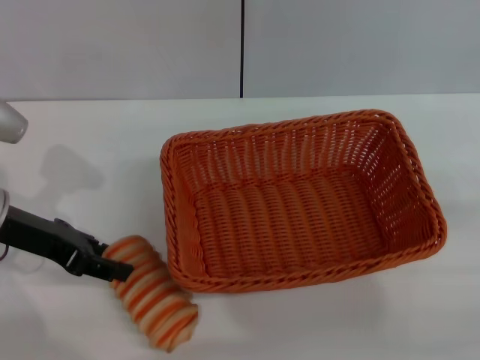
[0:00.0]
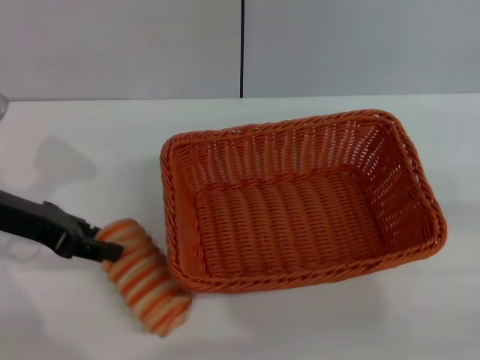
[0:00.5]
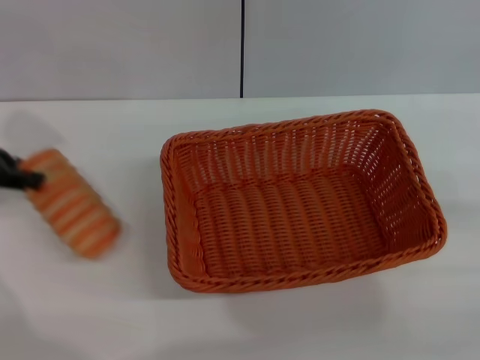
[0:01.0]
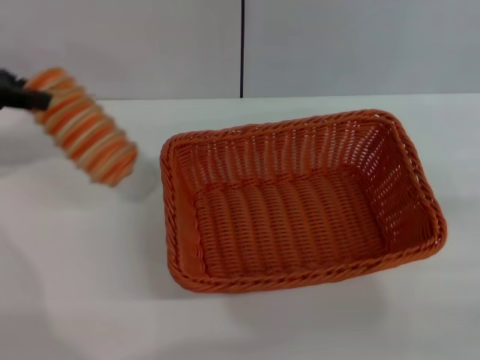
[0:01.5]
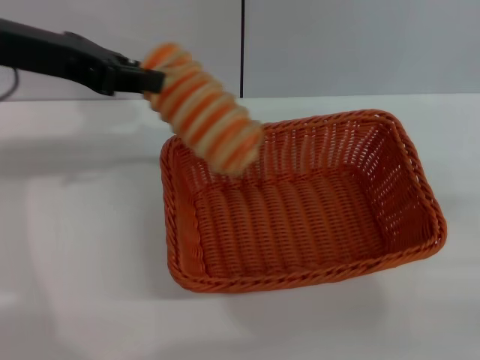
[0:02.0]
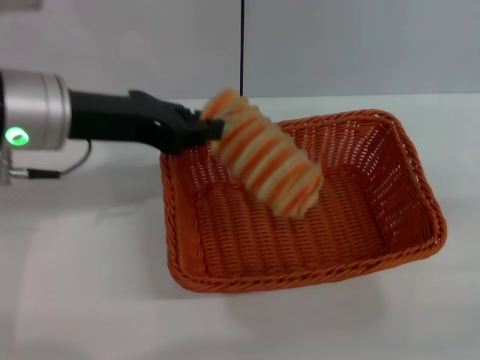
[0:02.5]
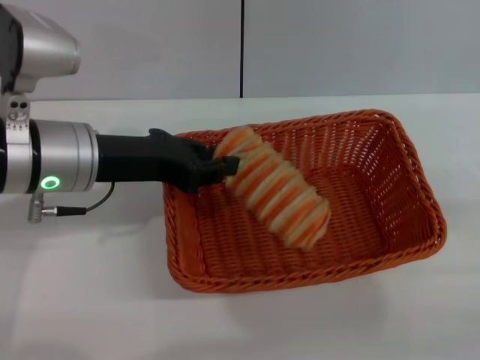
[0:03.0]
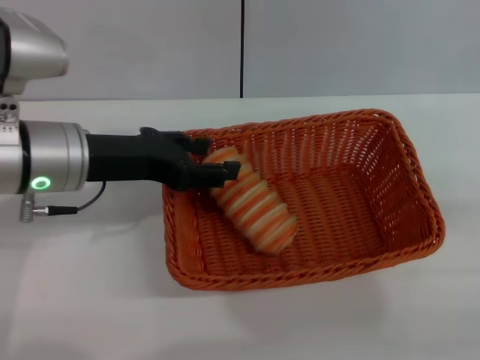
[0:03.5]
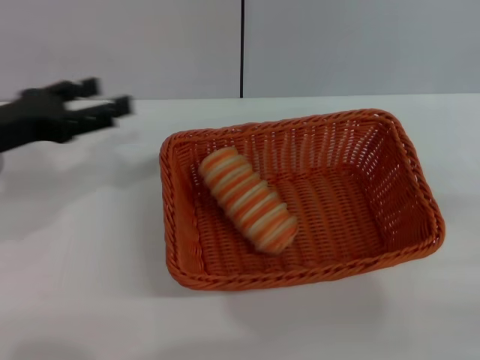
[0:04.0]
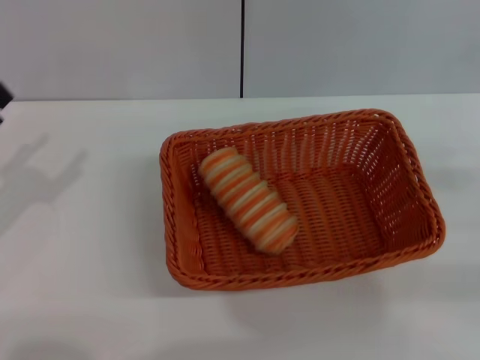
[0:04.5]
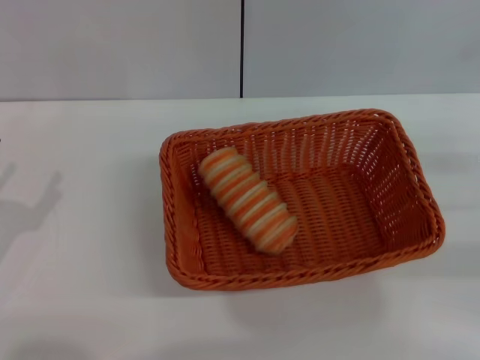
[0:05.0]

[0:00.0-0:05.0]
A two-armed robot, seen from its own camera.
Step, 0:01.5 to 0:03.5: Place the long bread into the light basket with the left gripper.
0:00.0 to 0:02.5: The left gripper heads upward and to the right, covering some 15 cm, and closes up.
0:02.5 to 0:05.0: The left gripper is displaced downward, backward and to the left by roughly 25 cm, and opens its fingers; the right gripper is displaced forward by about 5 cm.
